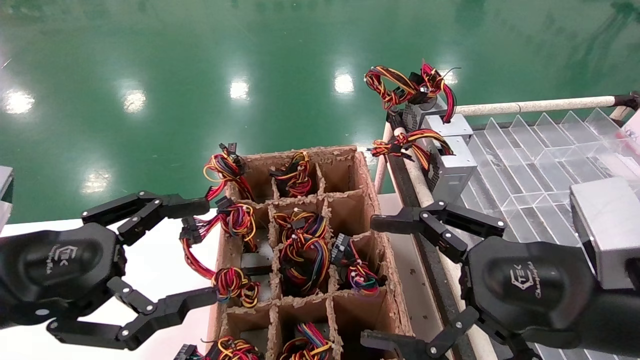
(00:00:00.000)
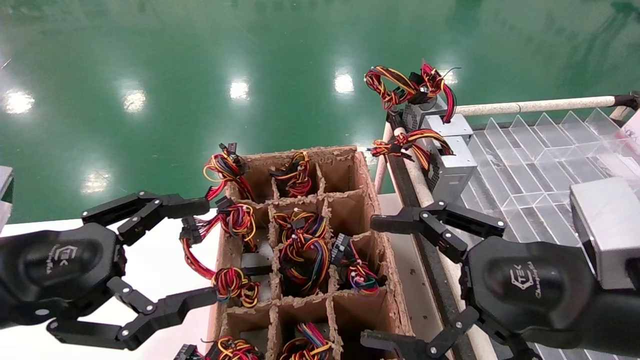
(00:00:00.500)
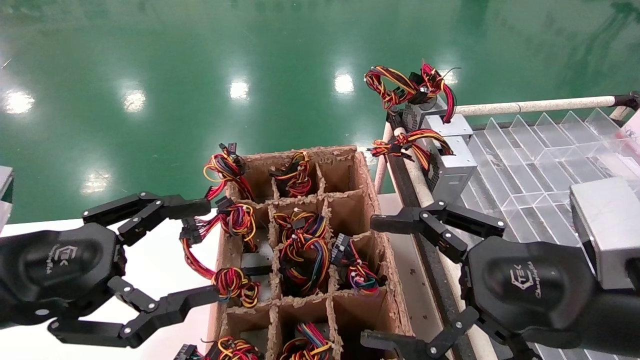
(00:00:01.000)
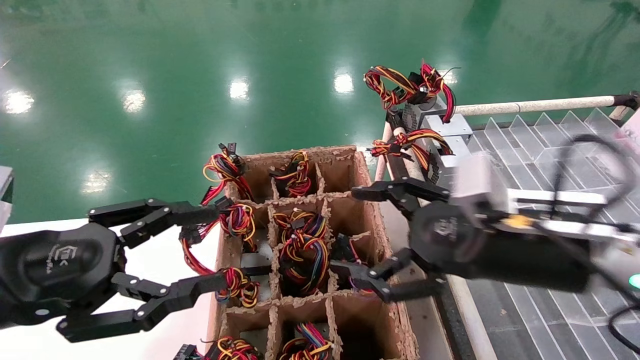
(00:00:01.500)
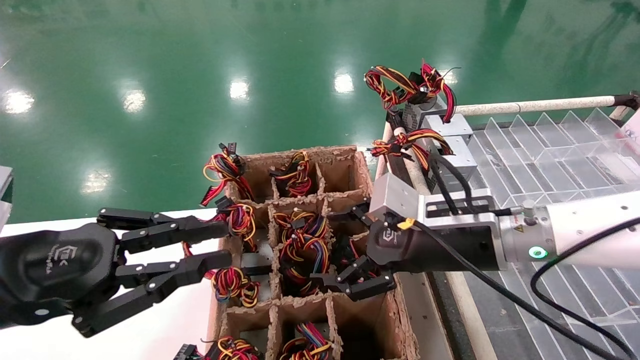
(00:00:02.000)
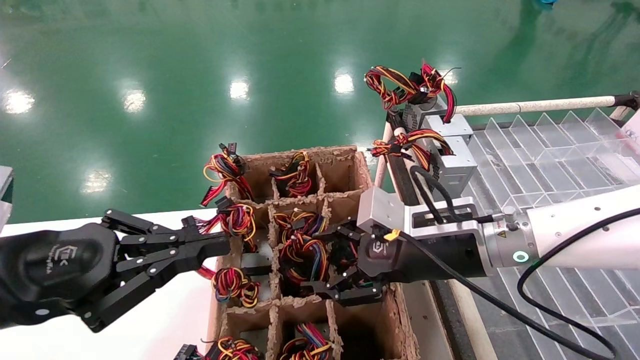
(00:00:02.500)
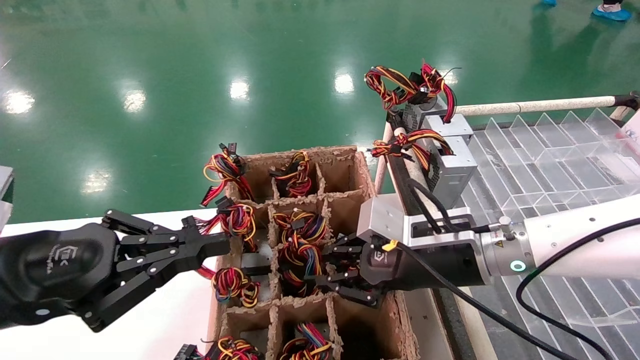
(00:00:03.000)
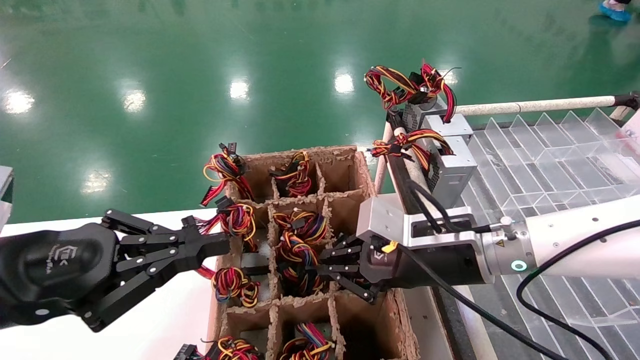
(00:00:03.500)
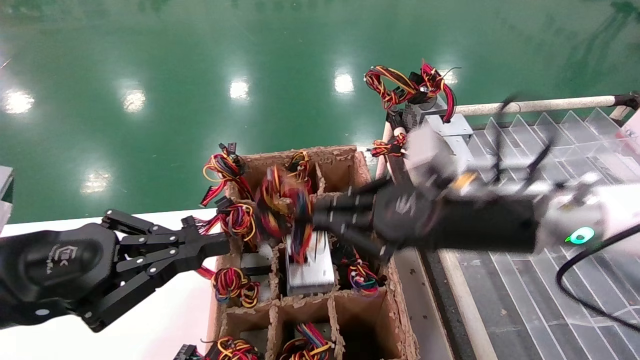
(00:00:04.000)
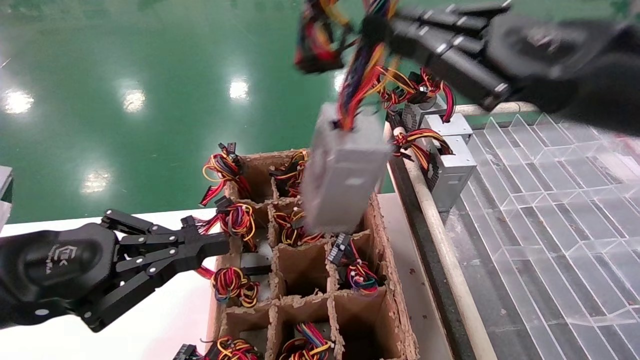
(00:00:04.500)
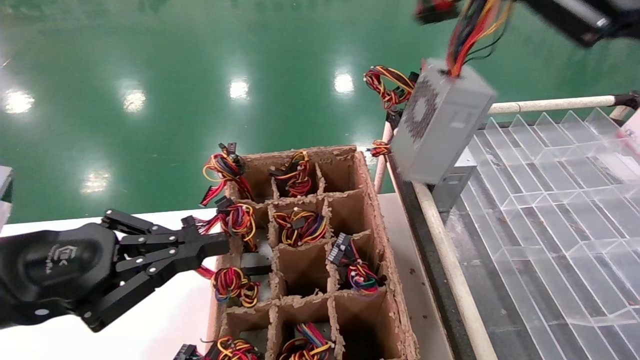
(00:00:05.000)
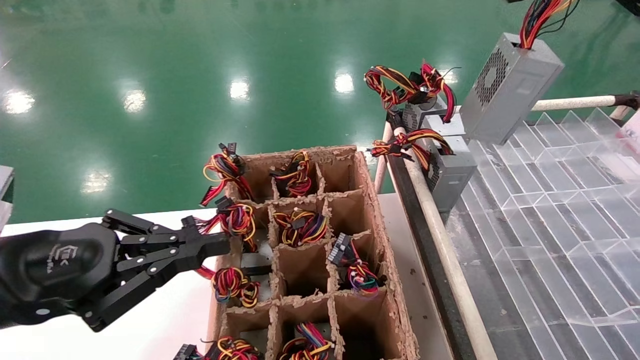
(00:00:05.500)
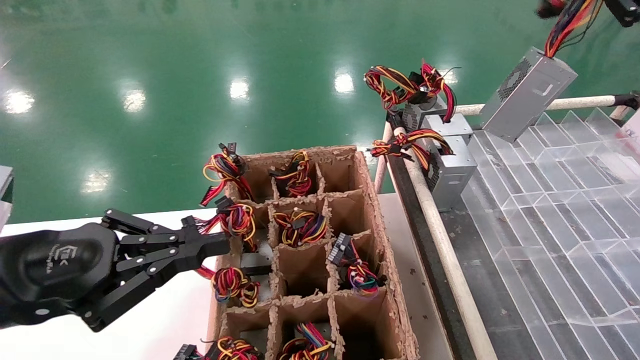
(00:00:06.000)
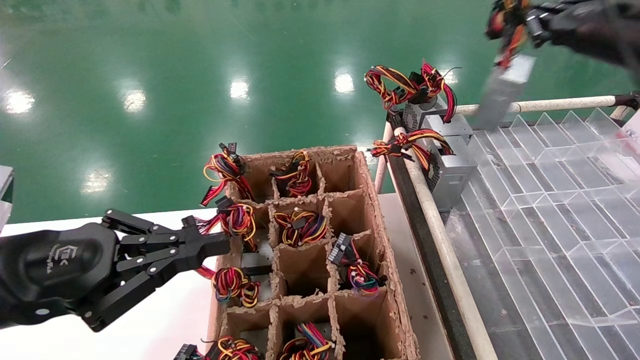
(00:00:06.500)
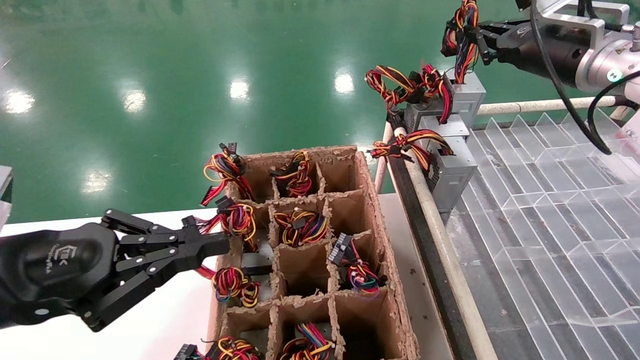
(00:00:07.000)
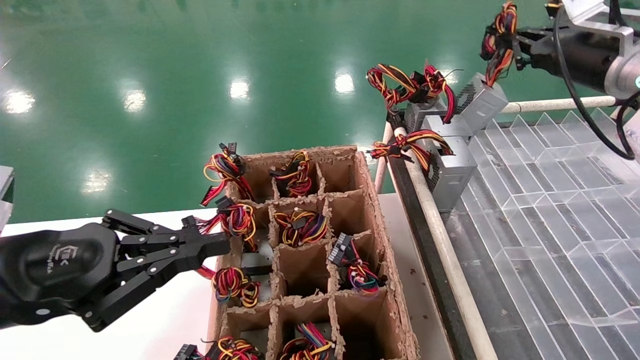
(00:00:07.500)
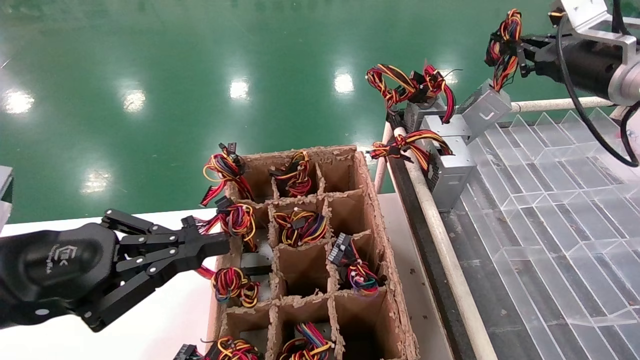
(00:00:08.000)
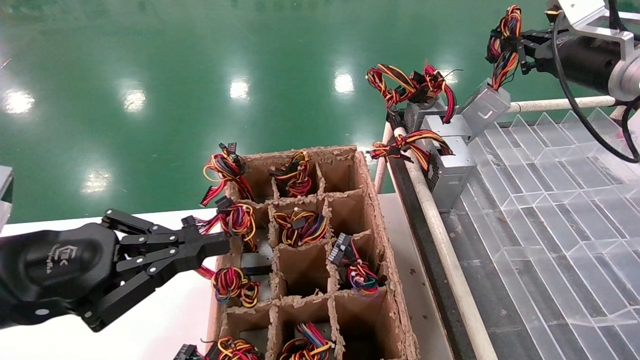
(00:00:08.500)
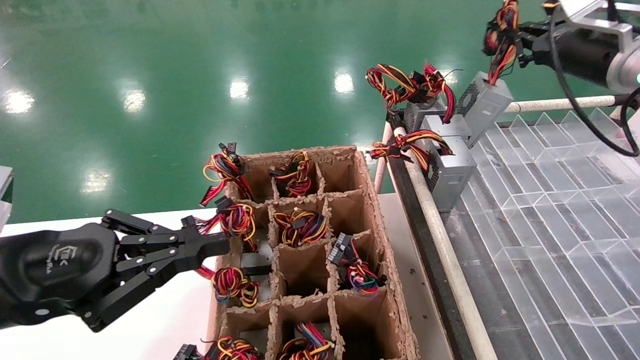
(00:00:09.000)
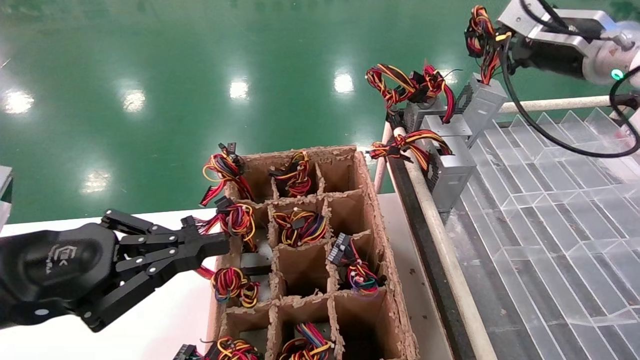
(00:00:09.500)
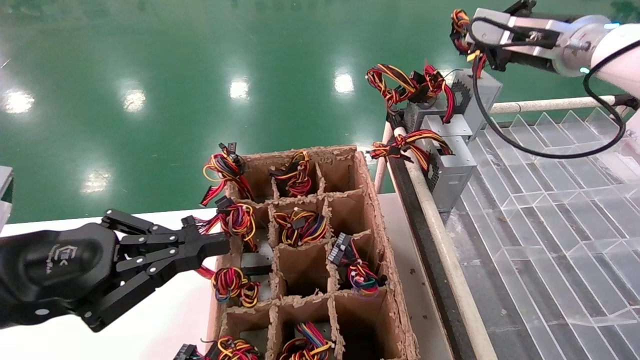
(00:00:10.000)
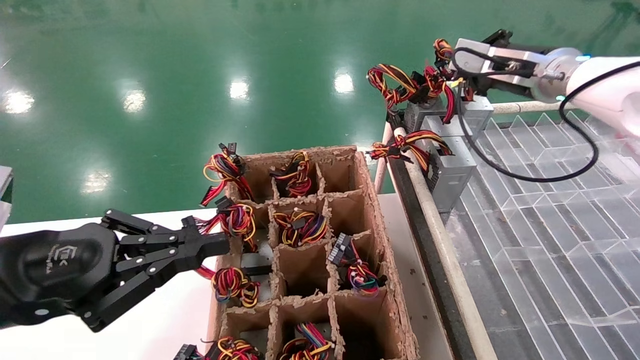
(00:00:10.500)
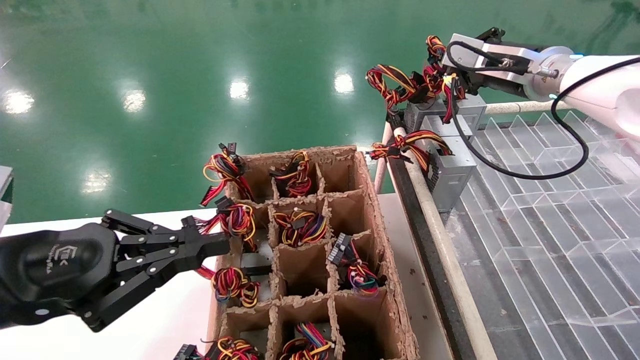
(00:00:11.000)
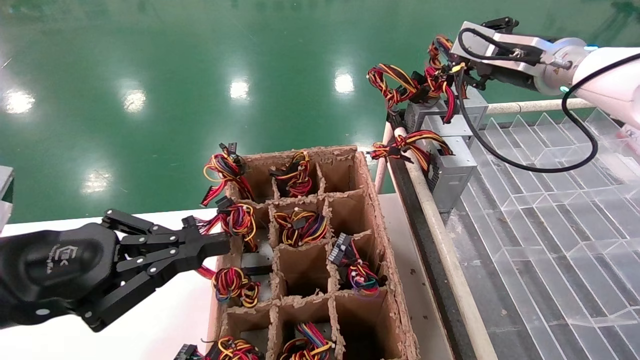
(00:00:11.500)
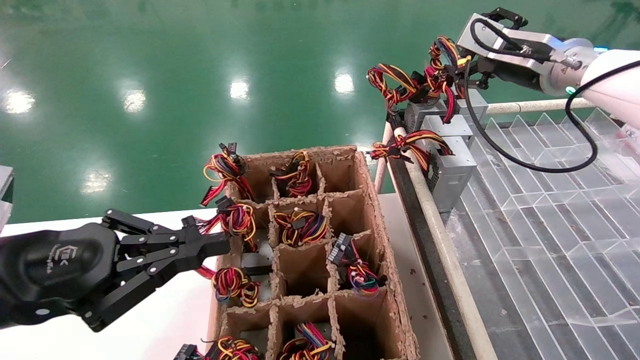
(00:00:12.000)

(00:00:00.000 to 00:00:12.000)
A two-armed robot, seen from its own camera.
Step, 00:00:01.500 - 00:00:03.500: Grab the main unit power supply from the containment box.
00:00:00.000 - 00:00:02.000: The left gripper closes. Meanwhile the right gripper moves forward and to the left, about 15 cm.
00:00:02.000 - 00:00:04.000: The right gripper heads upward, covering roughly 5 cm, and closes up.
00:00:04.000 - 00:00:06.000: The right gripper is displaced to the right and upward by about 30 cm.
00:00:06.000 - 00:00:08.000: The right gripper heads forward and to the left, covering about 10 cm.
00:00:08.000 - 00:00:10.000: The right gripper travels to the left by approximately 5 cm.
00:00:10.000 - 00:00:12.000: The right gripper opens up.

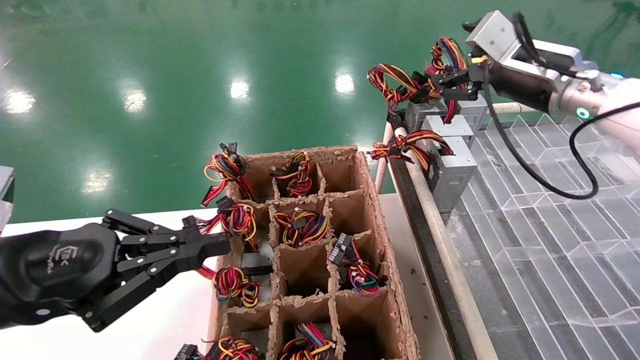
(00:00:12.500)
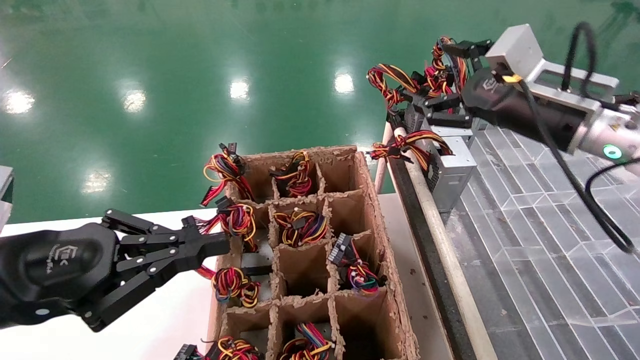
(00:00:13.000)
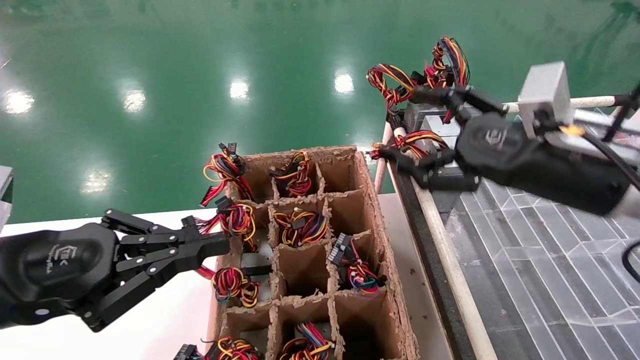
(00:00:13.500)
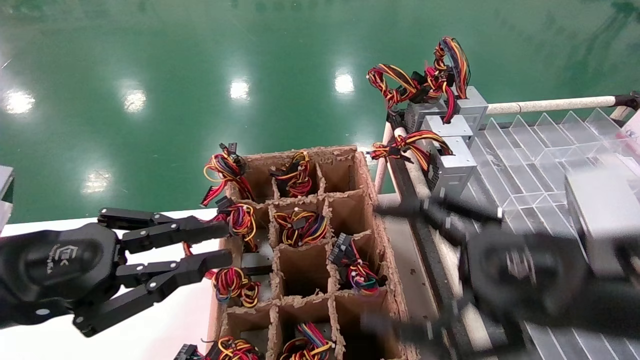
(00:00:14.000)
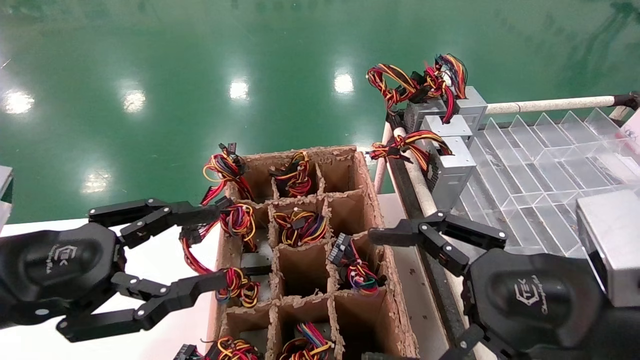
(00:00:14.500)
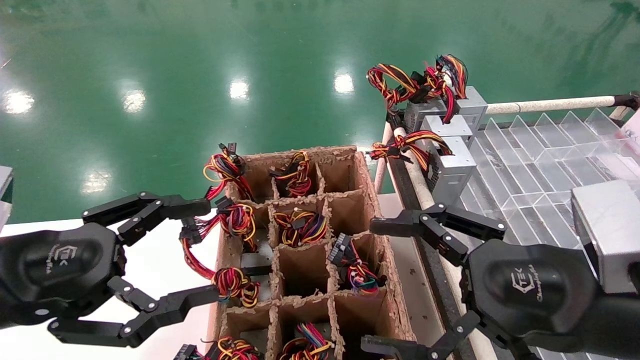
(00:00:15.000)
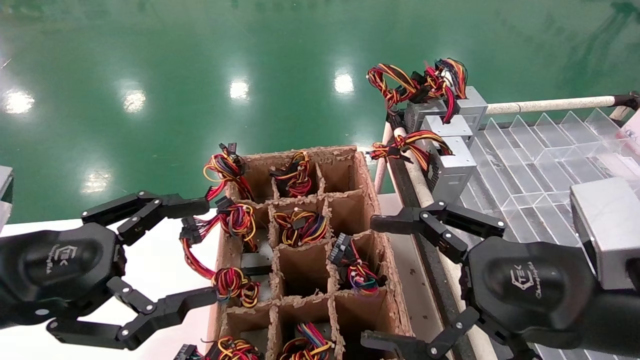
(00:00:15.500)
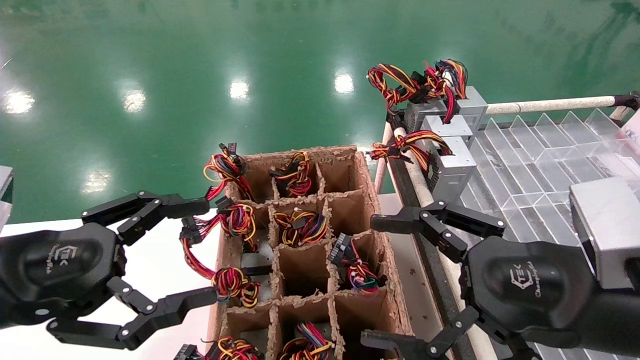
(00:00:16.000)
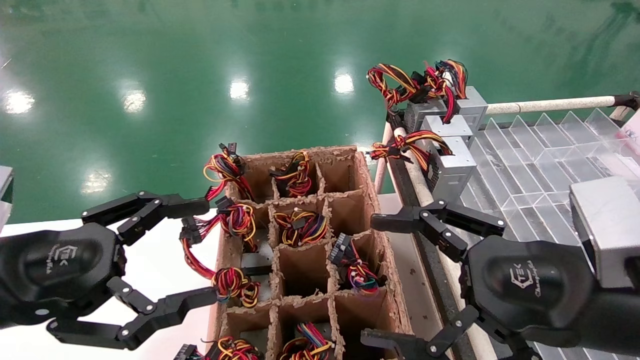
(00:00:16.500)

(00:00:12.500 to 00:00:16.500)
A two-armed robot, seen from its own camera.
00:00:12.500 - 00:00:14.500: The left gripper opens, while the right gripper goes some 30 cm backward and downward.
00:00:14.500 - 00:00:16.500: The left gripper opens its fingers.
